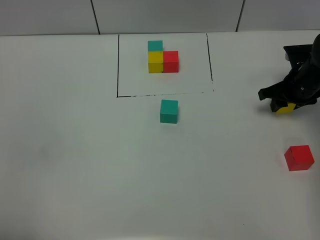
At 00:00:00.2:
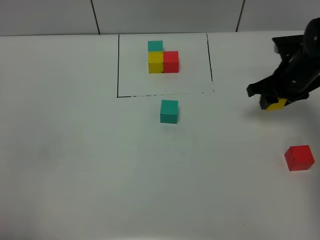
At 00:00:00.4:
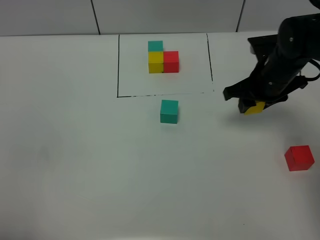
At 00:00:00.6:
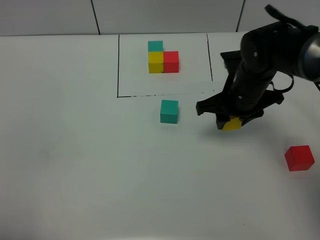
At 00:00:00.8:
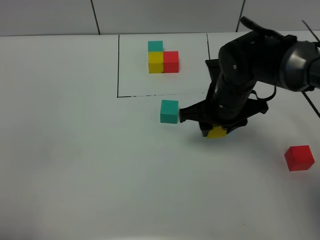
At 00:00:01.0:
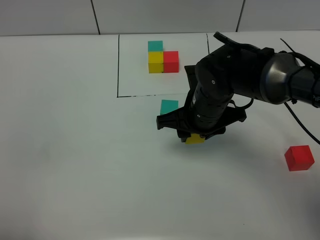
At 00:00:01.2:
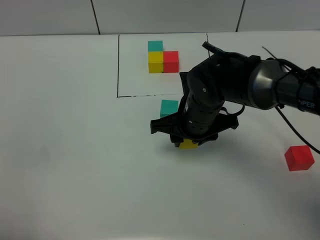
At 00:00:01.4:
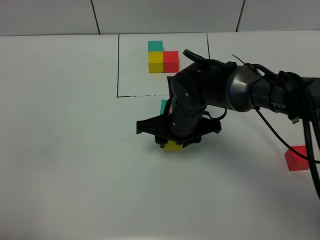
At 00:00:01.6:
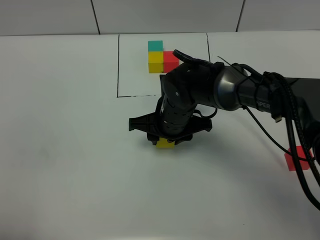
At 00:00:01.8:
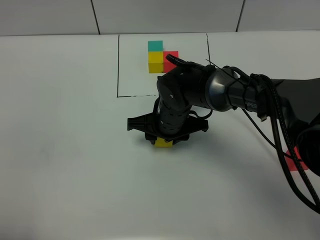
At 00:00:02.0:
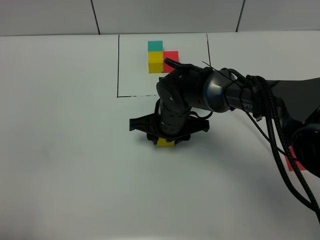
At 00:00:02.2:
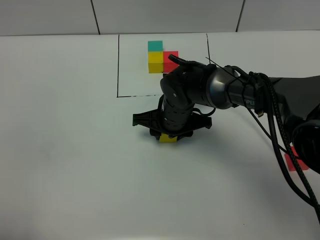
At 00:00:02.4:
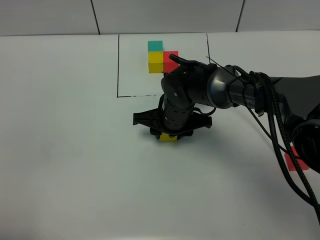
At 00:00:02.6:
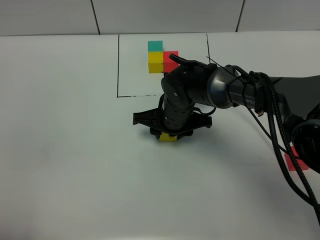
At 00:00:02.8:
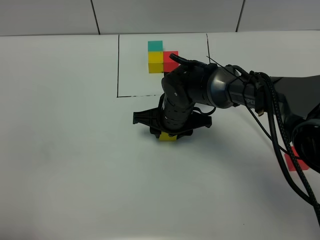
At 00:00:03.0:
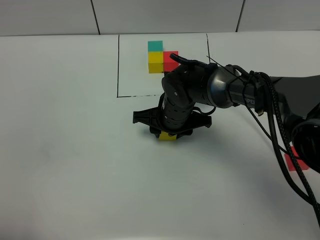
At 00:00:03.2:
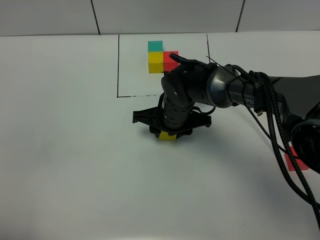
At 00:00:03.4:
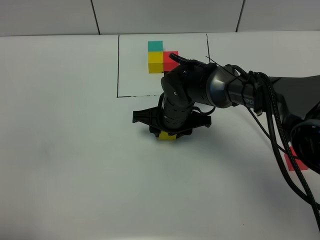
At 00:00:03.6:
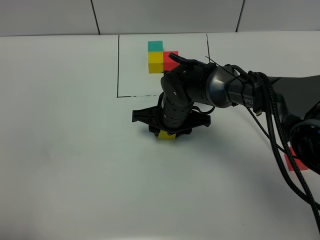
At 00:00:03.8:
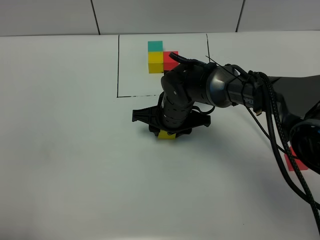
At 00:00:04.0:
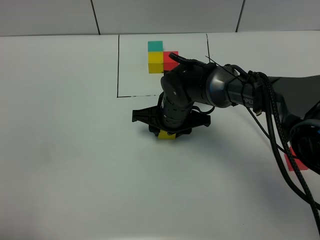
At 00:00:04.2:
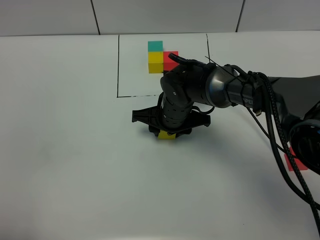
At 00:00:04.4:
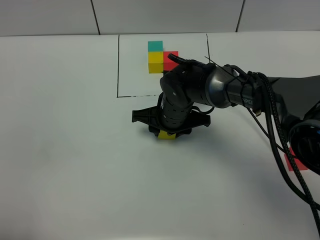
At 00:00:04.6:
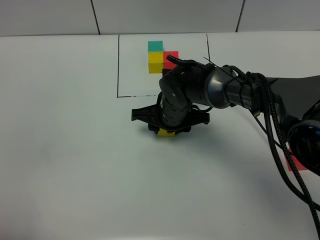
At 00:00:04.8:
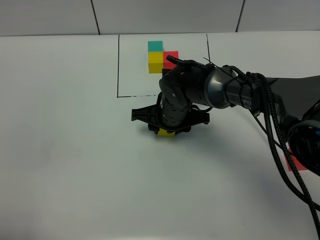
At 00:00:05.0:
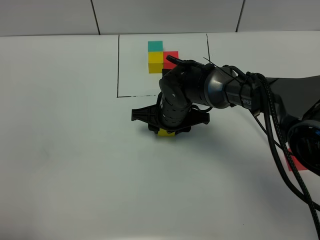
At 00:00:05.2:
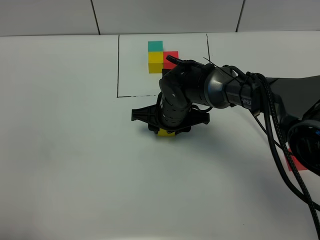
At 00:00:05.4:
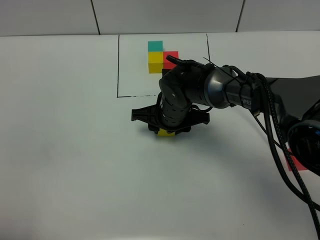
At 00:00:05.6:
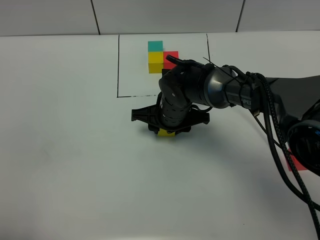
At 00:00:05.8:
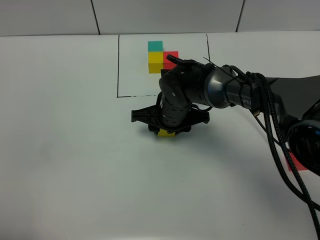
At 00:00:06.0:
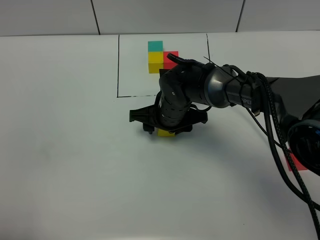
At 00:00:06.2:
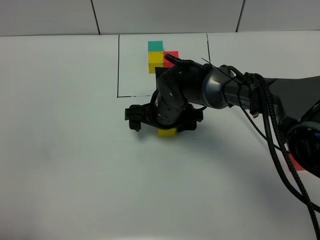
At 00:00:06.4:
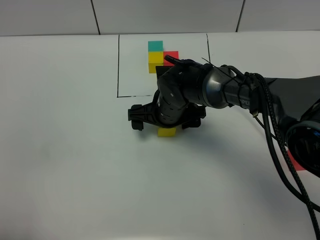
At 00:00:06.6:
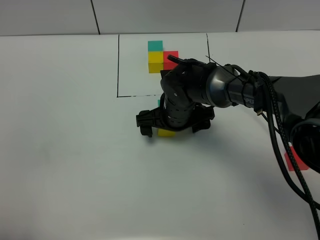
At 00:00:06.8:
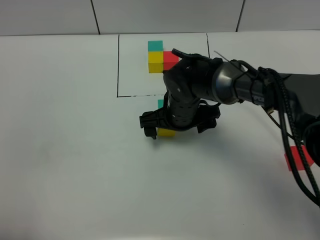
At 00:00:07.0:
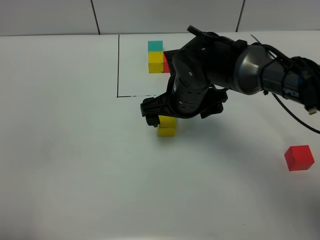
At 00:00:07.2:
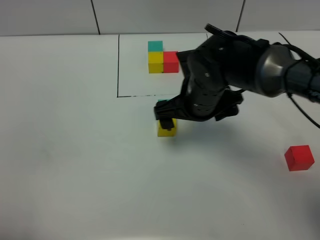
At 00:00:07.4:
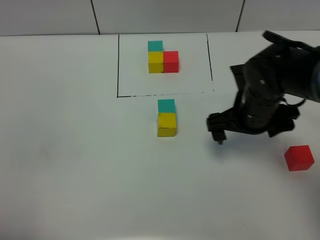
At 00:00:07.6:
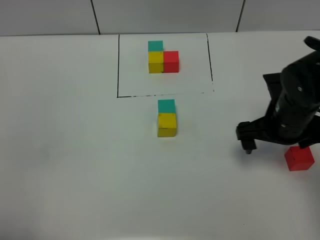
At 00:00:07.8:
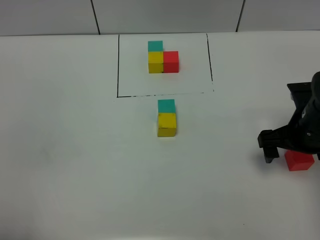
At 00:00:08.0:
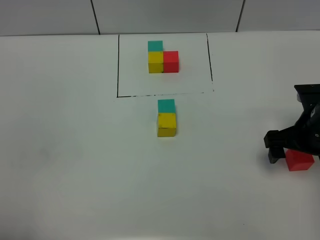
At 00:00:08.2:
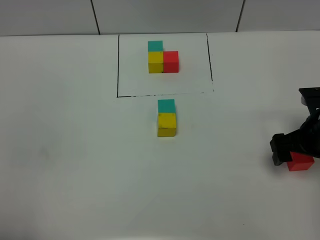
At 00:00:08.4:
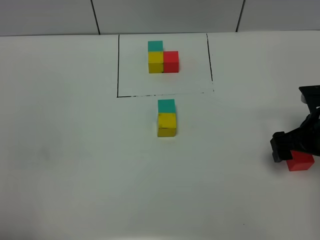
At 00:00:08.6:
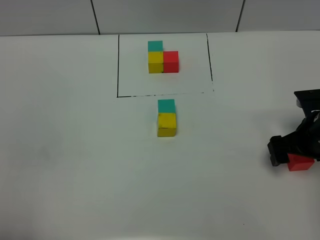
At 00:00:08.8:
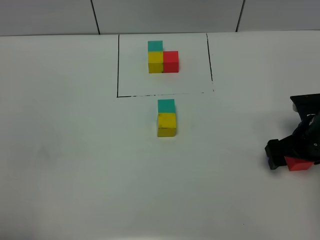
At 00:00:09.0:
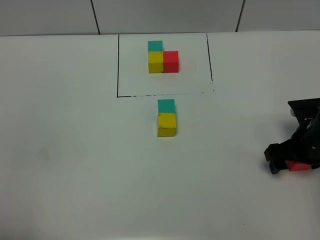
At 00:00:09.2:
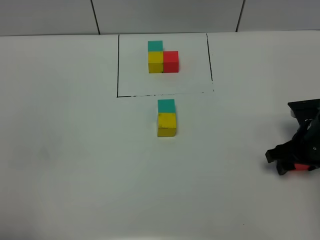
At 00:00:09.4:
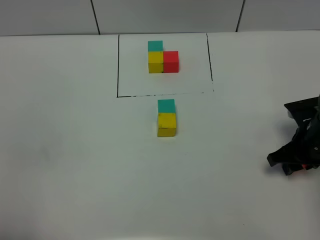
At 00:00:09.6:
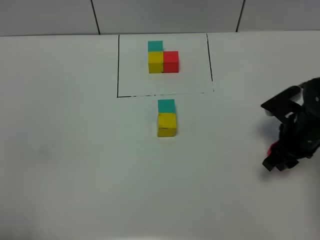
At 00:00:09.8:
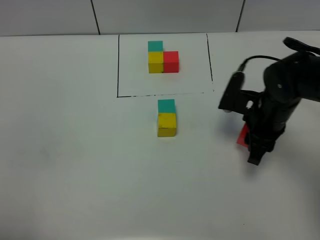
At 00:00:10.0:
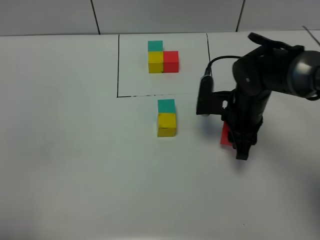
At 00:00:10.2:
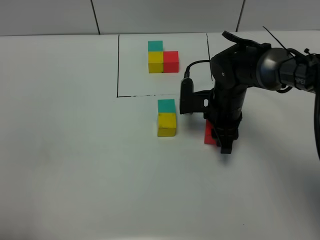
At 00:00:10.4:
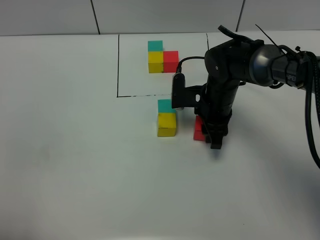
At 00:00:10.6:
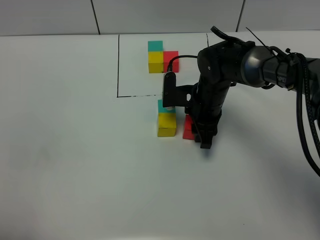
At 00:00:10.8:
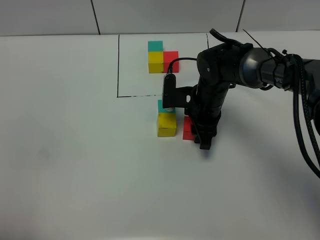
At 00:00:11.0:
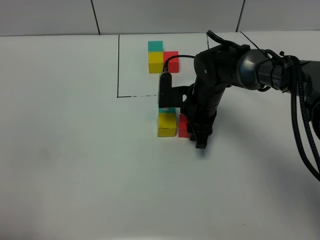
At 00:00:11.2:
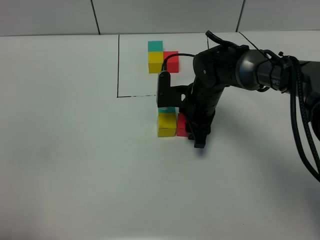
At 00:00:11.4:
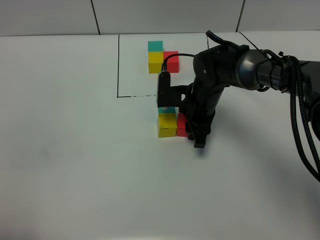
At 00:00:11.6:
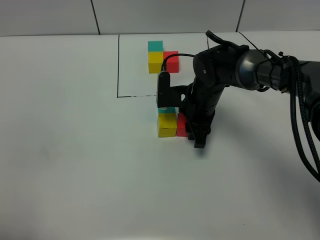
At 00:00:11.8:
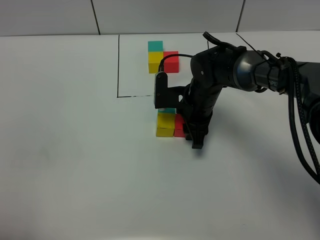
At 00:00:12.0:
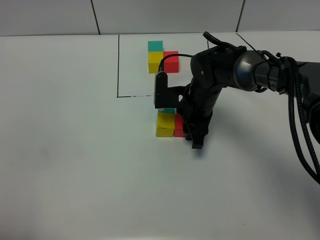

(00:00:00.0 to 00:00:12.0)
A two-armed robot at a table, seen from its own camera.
Task of the whole recording: According to the building block template in front, assemble the scattered blocks together.
Step, 00:00:00.0 - 00:00:06.0: Put the yellow build block on the behind of the green build block.
00:00:00.0 - 00:00:01.6: The right gripper goes about 25 cm to the left.
00:00:01.6 - 00:00:03.0: The grippers stay close to where they were, moving slightly.
00:00:03.0 - 00:00:06.0: Both grippers stay about where they are.
00:00:06.0 - 00:00:07.6: The right gripper goes roughly 20 cm to the right, and opens its fingers.
00:00:07.6 - 00:00:09.0: The right gripper goes roughly 10 cm to the right and downward.
00:00:09.0 - 00:00:10.4: The right gripper shifts some 20 cm to the left and forward, and closes its fingers.
00:00:10.4 - 00:00:12.0: The grippers move only a little.

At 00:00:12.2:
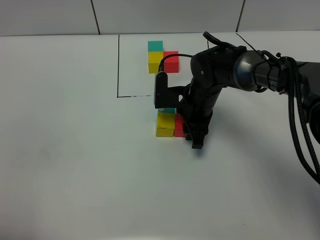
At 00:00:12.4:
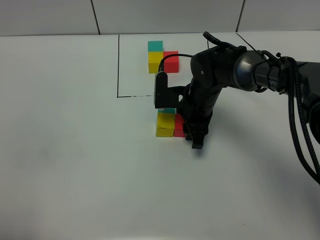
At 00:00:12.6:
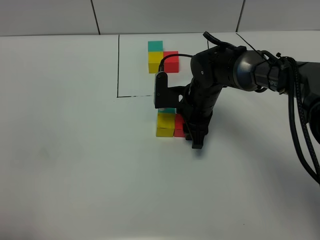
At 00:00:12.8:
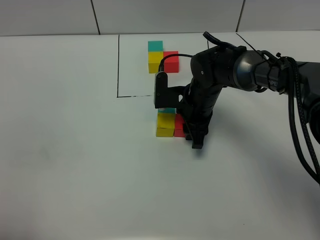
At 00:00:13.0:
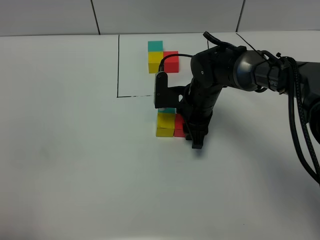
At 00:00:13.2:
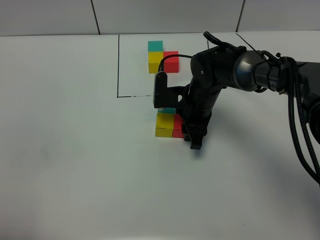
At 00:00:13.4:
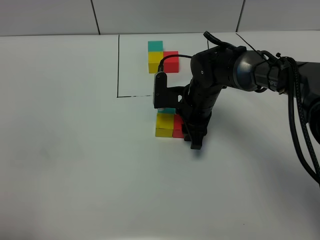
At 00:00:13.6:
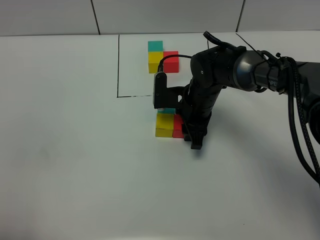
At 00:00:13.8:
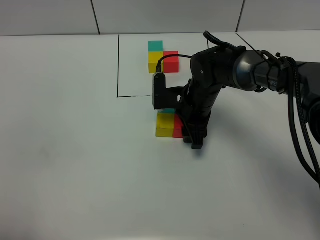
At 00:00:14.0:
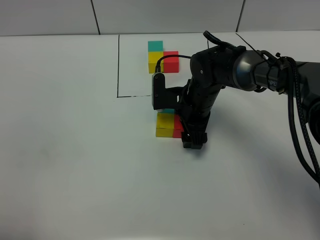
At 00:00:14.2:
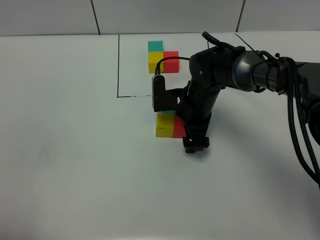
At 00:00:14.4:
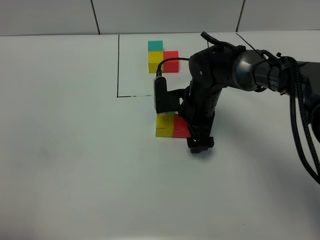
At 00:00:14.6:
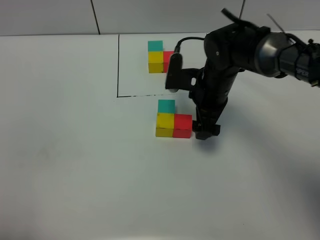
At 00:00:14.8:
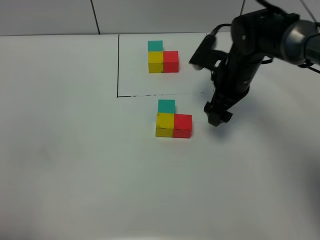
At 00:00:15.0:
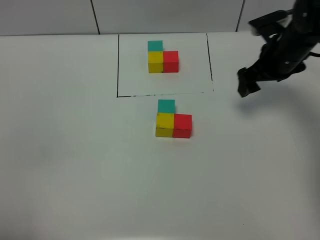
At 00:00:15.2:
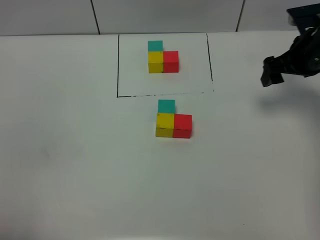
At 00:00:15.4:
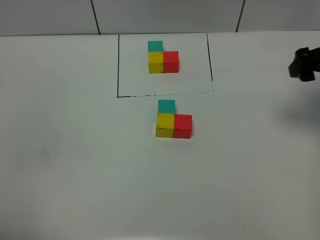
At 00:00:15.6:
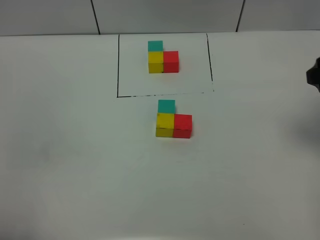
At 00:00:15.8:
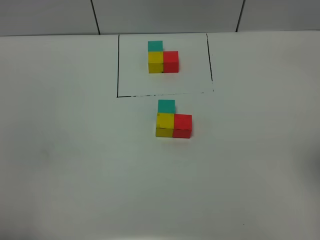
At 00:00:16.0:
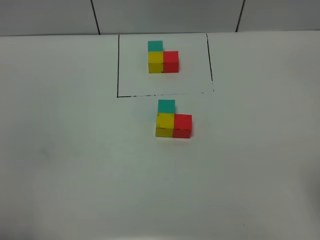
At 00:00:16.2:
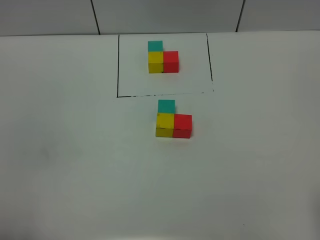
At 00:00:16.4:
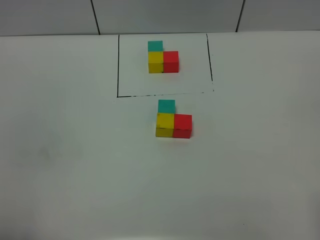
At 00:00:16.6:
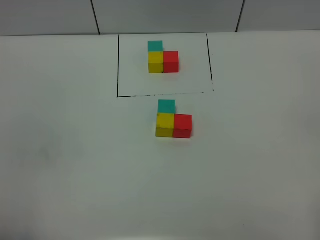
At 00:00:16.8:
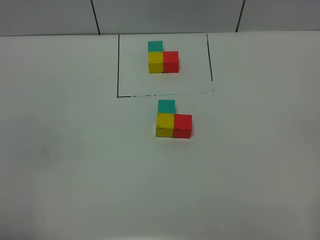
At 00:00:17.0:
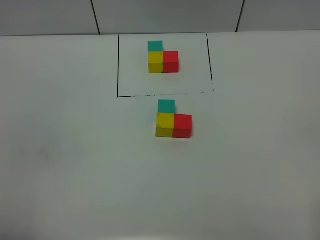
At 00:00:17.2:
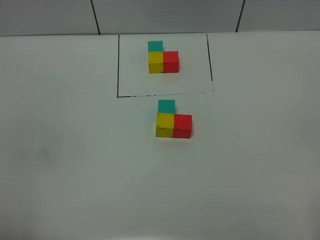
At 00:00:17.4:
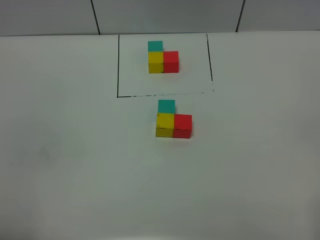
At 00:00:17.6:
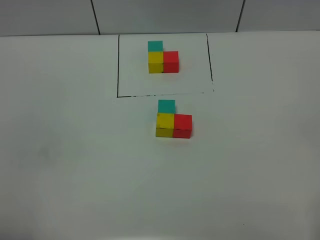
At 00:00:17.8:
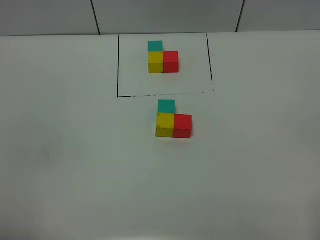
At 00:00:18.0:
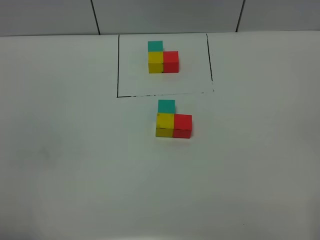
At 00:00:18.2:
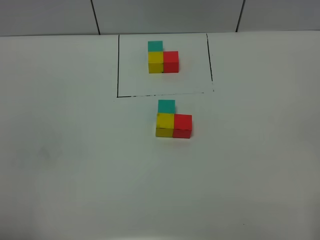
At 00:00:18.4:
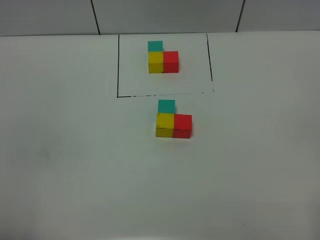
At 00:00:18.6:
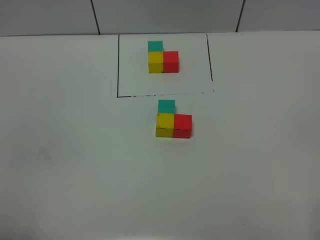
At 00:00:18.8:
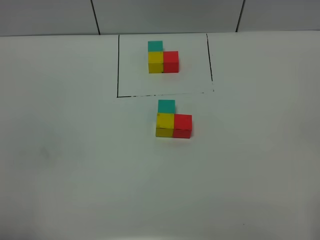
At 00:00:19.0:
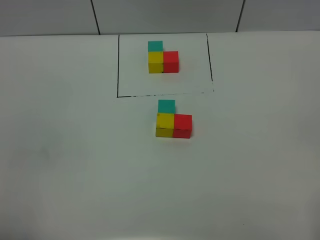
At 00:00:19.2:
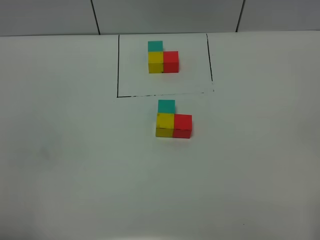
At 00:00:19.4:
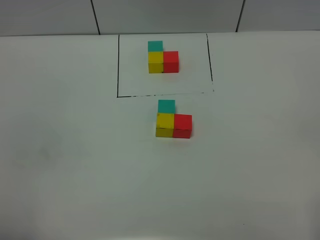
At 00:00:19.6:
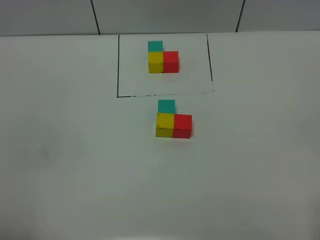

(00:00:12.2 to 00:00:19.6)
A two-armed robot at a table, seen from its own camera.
Task of the whole recording: According to the building block template in front, assemble the scattered blocks together.
00:00:12.2 - 00:00:13.6: Both grippers stay put.
00:00:13.6 - 00:00:15.2: The right gripper is displaced to the right and upward by about 25 cm, and opens its fingers.
00:00:15.2 - 00:00:16.6: The right gripper moves backward, approximately 40 cm.
00:00:18.2 - 00:00:19.6: Both grippers stay about where they are.
